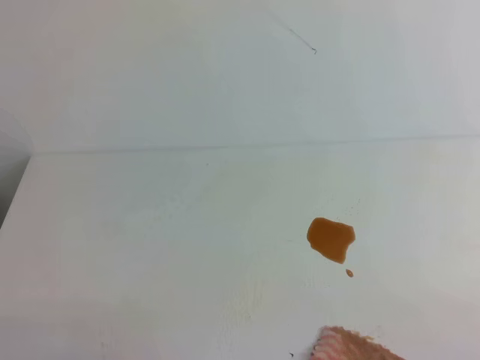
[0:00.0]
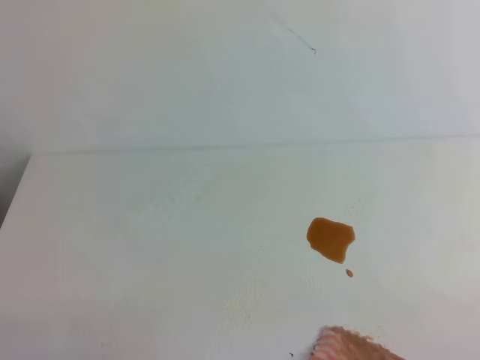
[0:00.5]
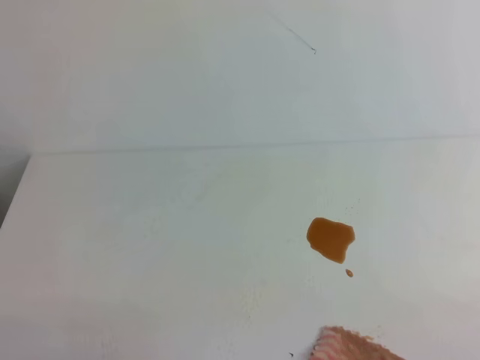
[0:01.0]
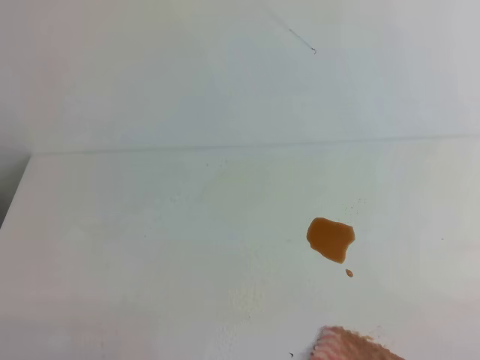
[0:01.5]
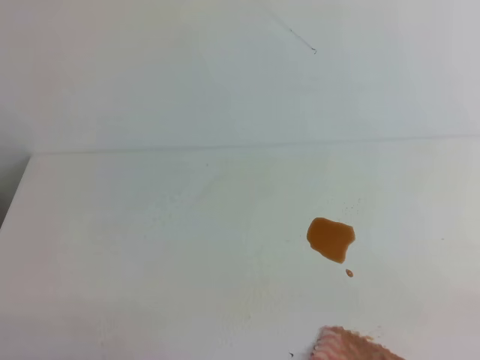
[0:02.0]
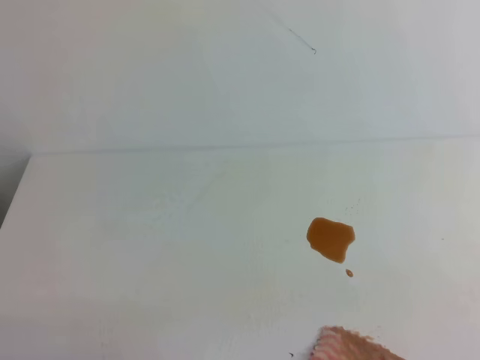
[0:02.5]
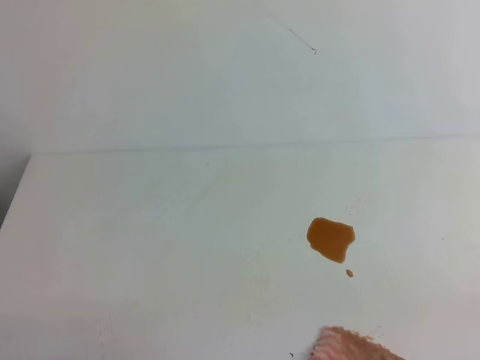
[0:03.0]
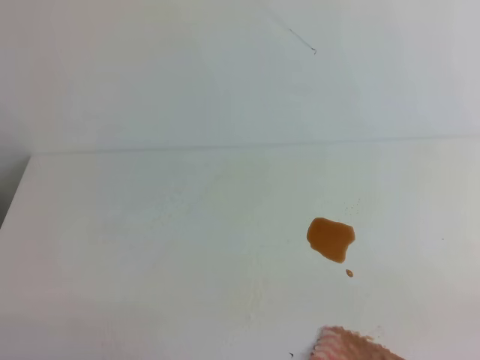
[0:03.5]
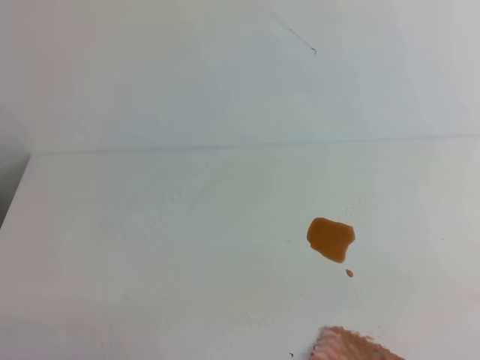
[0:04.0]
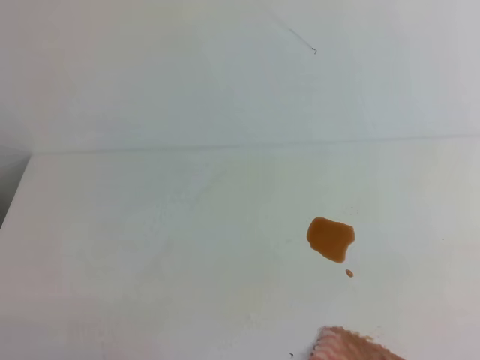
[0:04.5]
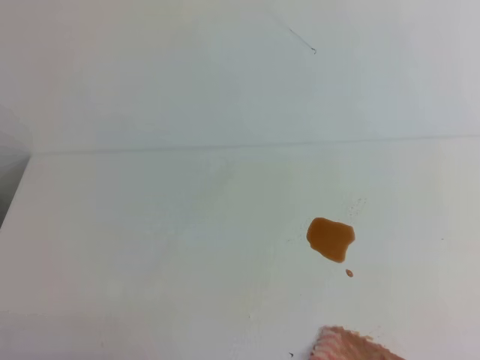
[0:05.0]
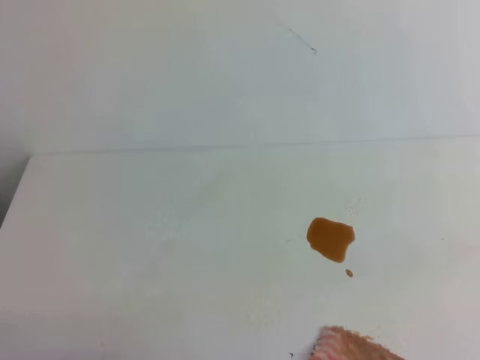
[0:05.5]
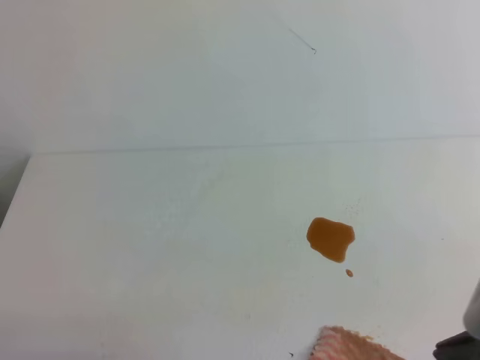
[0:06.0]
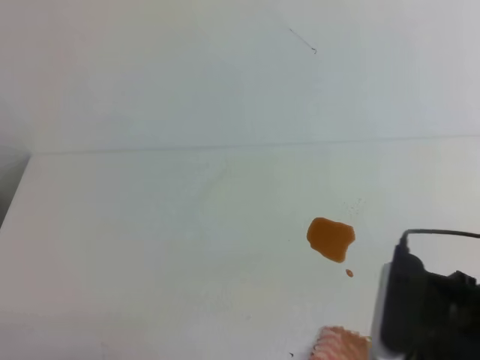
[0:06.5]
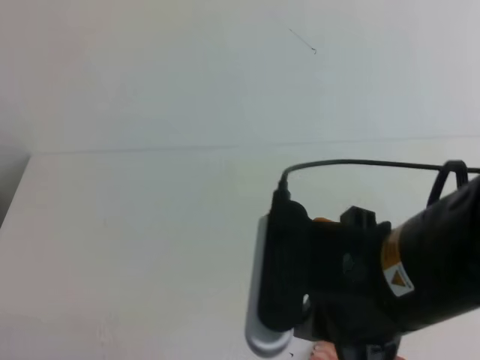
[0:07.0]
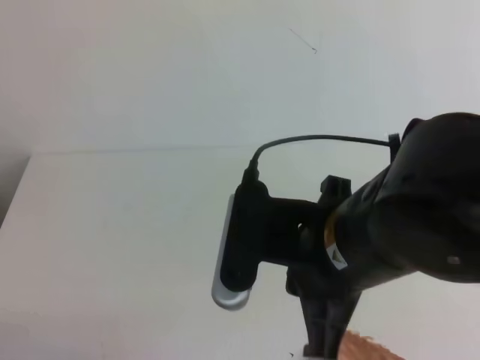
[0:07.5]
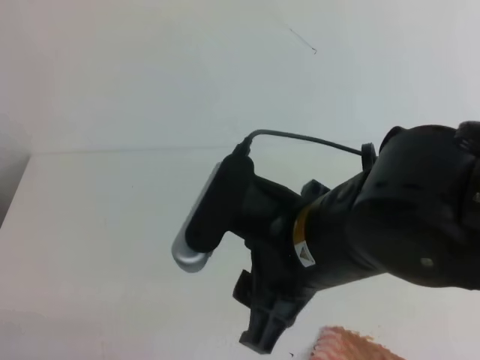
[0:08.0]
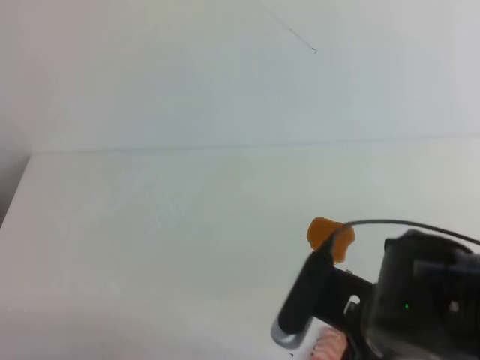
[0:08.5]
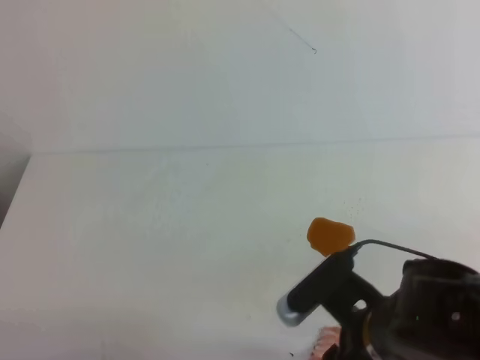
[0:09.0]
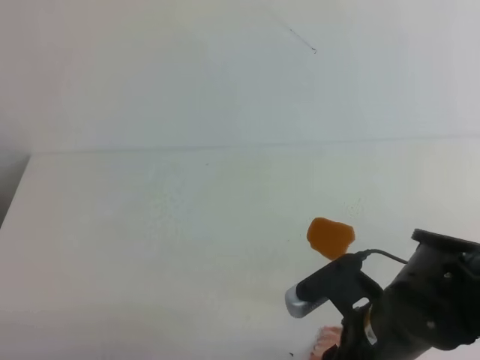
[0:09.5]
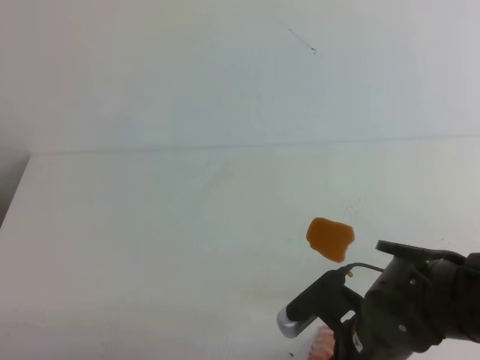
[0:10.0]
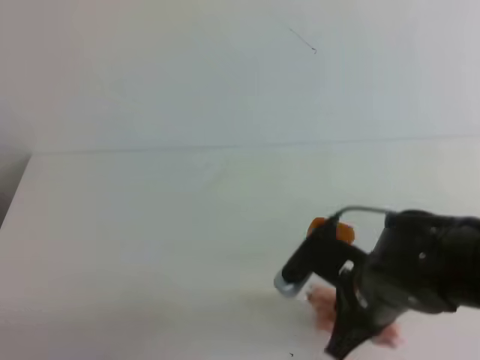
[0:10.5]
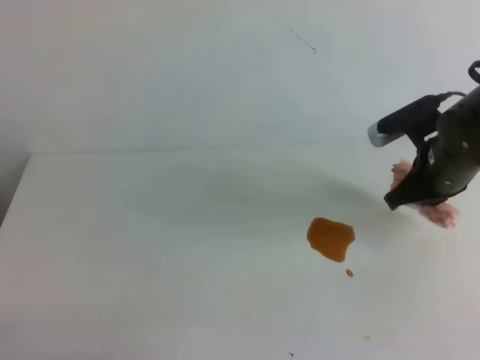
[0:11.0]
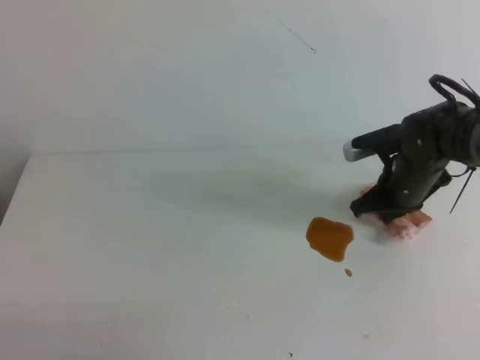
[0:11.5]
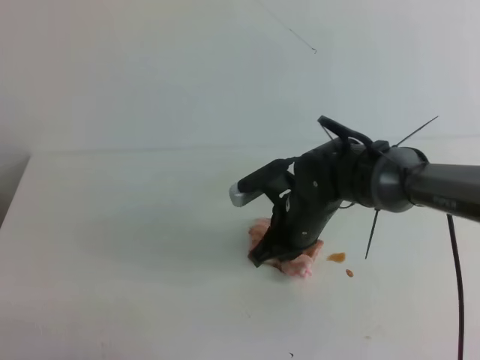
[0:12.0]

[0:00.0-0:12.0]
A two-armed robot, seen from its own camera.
0:04.0 to 0:06.0: The right gripper heads to the left and forward, covering some 10 cm, and reaches roughly 15 cm upward, then returns.
0:06.0 to 0:08.0: The right gripper heads to the left, covering approximately 20 cm, and opens its fingers.
0:08.0 to 0:10.0: The right gripper heads downward, covering approximately 20 cm.
0:10.0 to 0:12.0: The right gripper moves forward, about 20 cm, and closes.

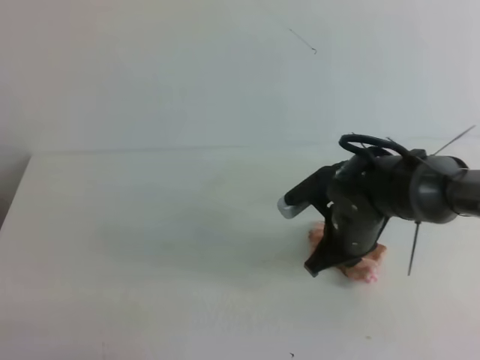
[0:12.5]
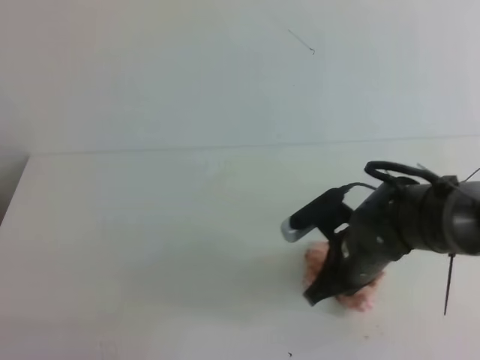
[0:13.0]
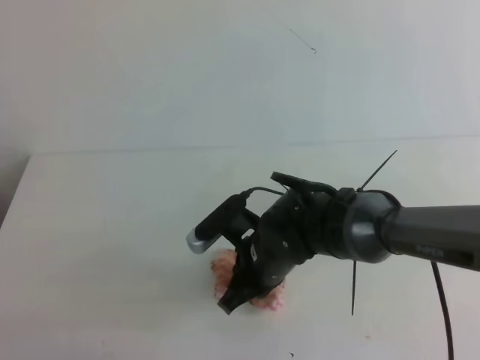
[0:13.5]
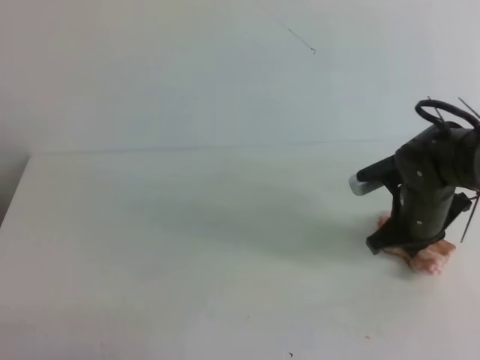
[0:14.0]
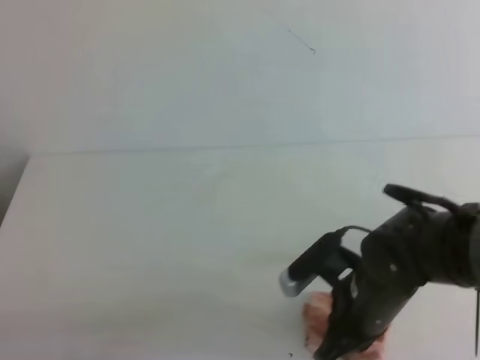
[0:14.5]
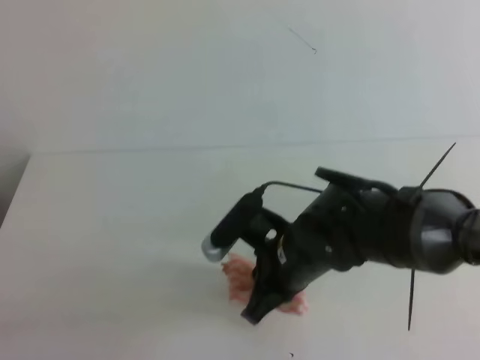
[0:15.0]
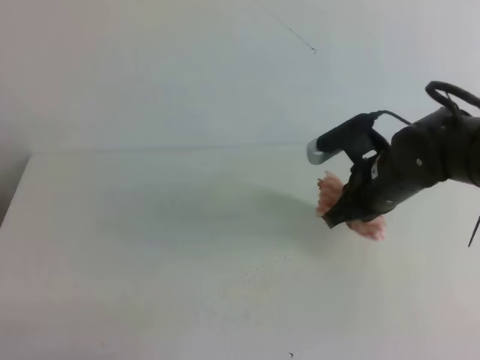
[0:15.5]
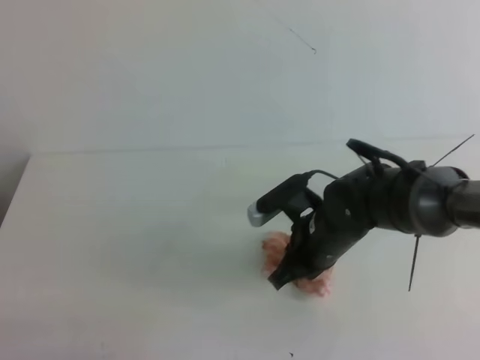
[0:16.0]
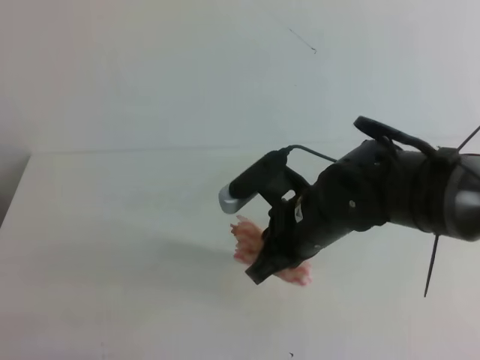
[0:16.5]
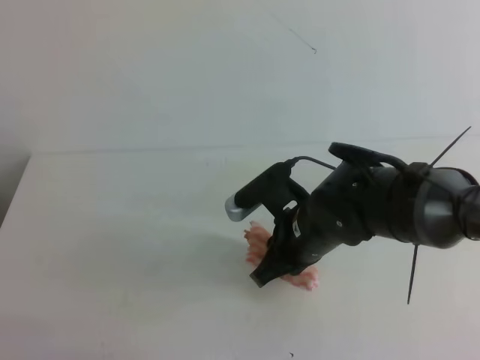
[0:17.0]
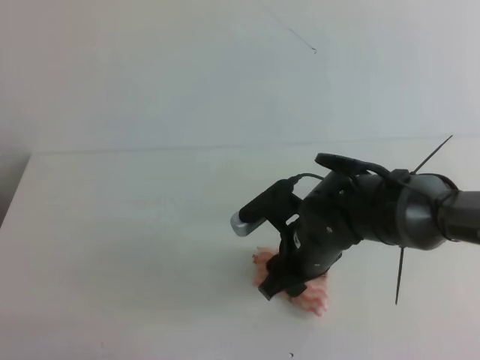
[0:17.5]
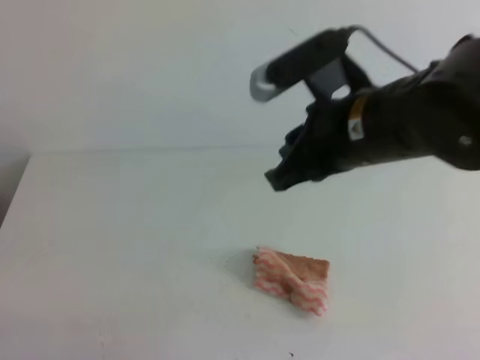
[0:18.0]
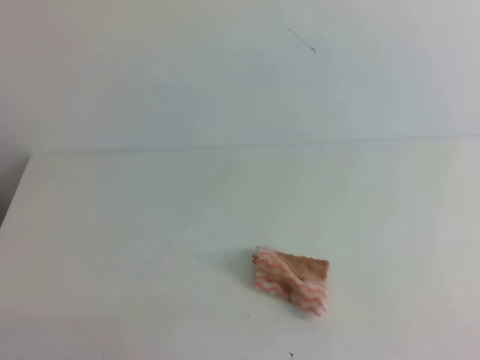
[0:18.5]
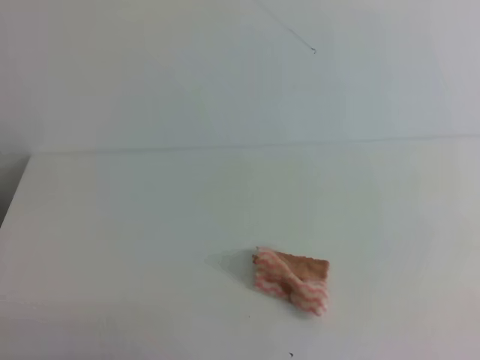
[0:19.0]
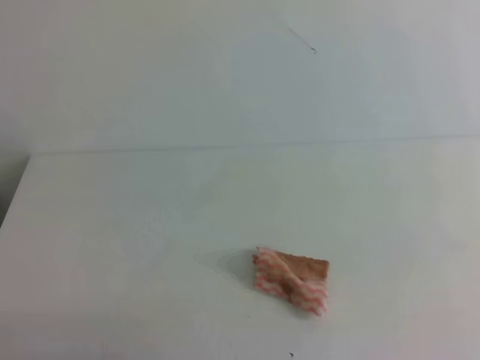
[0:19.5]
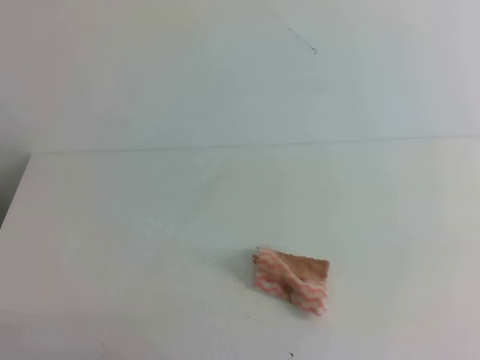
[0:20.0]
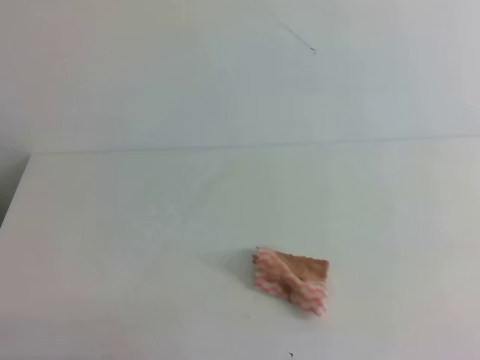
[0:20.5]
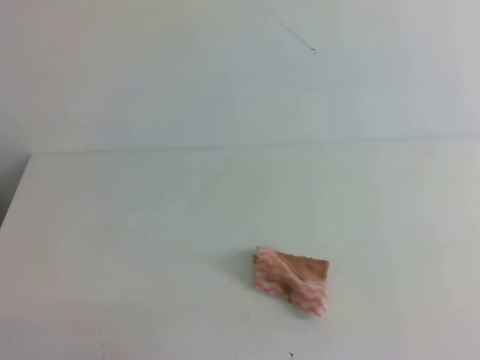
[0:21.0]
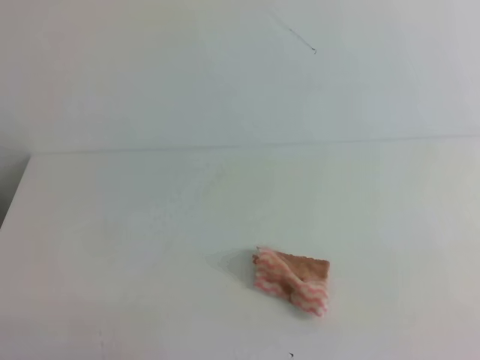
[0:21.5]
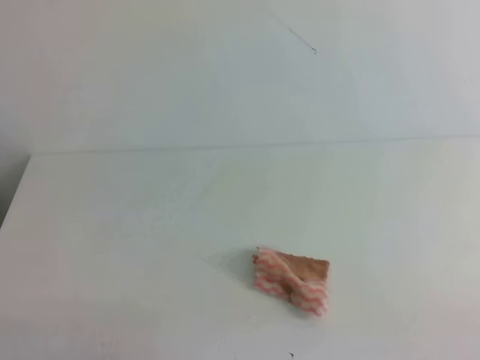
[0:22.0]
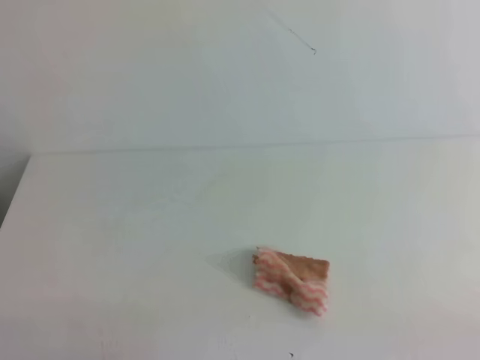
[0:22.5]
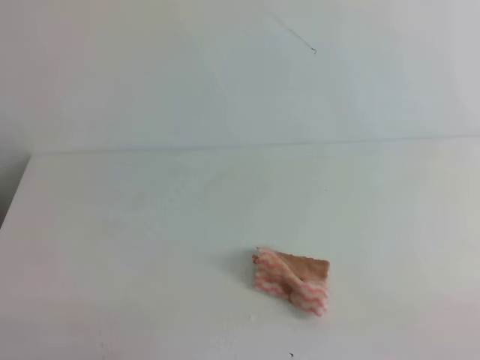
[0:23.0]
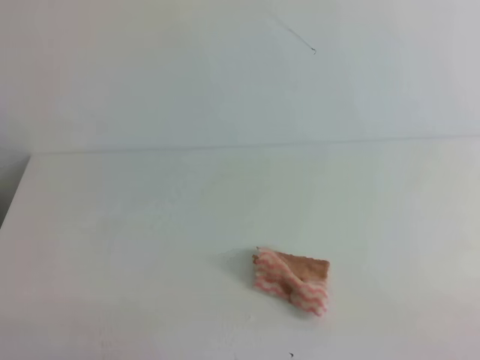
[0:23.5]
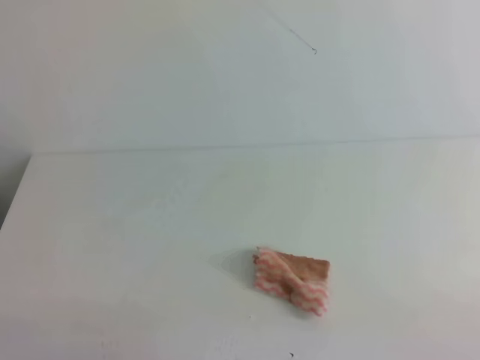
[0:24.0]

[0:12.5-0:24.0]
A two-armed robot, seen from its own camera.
0:12.5 to 0:14.5: The right gripper goes left and right, some 15 cm each way, reversing 2 times.
0:14.5 to 0:16.5: The right gripper travels upward and to the left by about 10 cm.
0:16.5 to 0:18.5: The right gripper travels upward, to the right and backward by approximately 30 cm, and opens and closes again.
